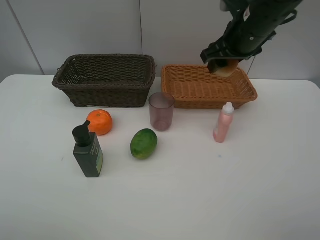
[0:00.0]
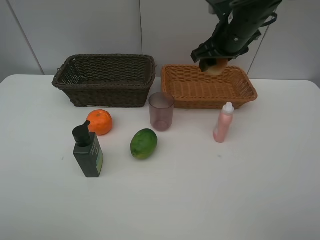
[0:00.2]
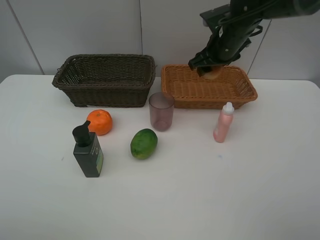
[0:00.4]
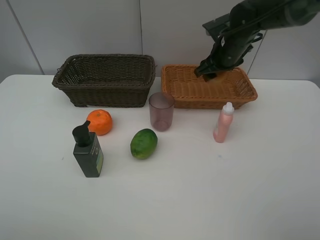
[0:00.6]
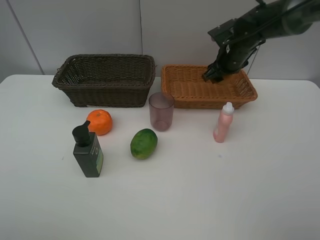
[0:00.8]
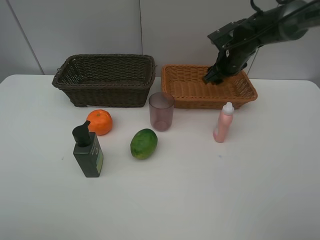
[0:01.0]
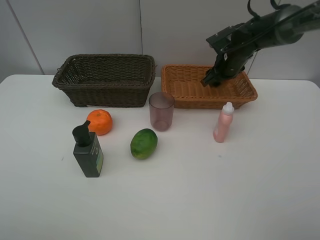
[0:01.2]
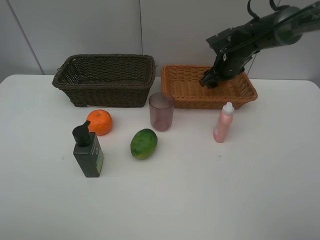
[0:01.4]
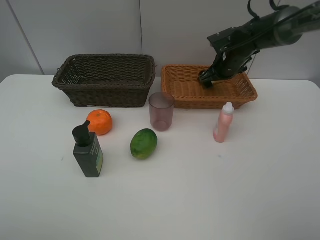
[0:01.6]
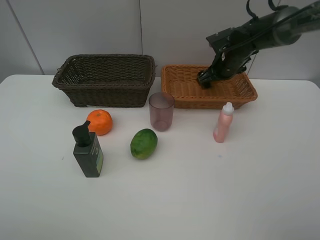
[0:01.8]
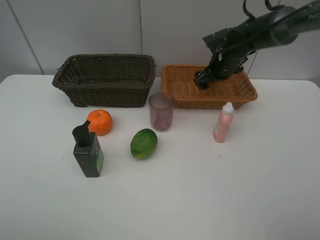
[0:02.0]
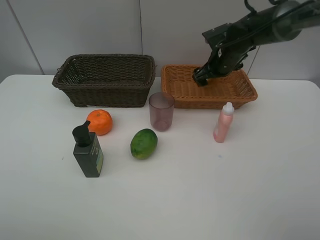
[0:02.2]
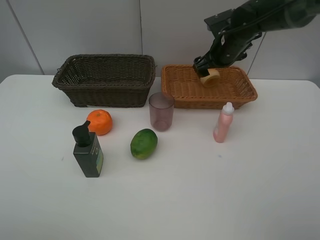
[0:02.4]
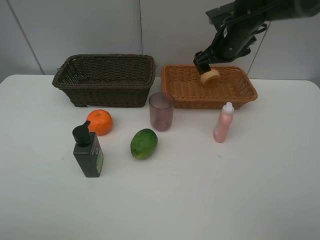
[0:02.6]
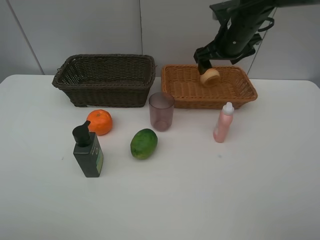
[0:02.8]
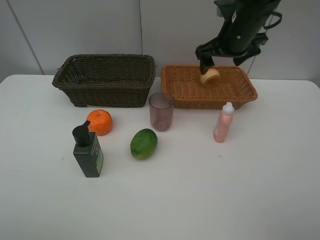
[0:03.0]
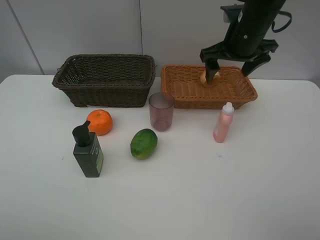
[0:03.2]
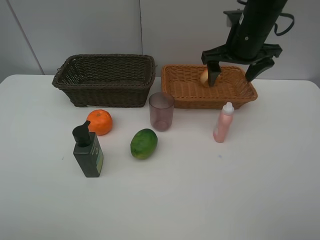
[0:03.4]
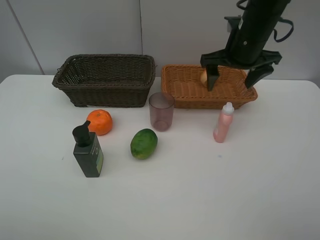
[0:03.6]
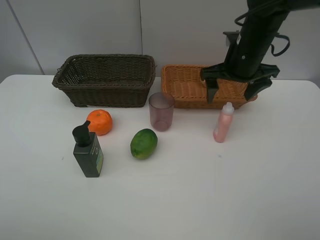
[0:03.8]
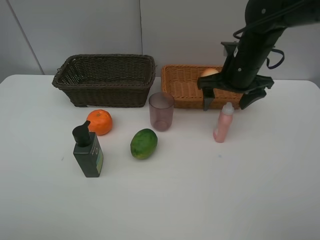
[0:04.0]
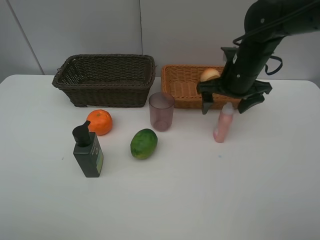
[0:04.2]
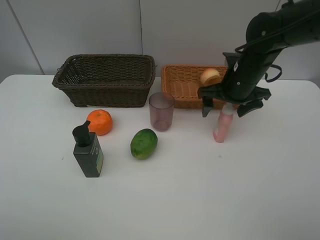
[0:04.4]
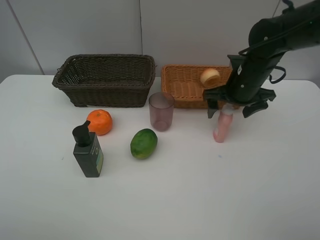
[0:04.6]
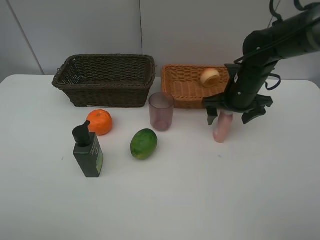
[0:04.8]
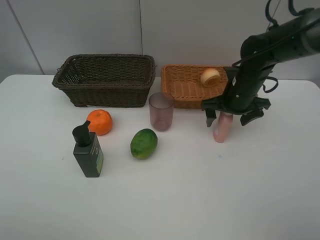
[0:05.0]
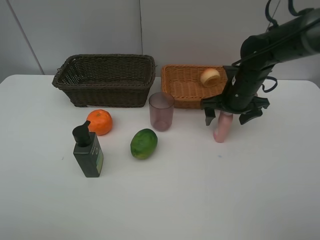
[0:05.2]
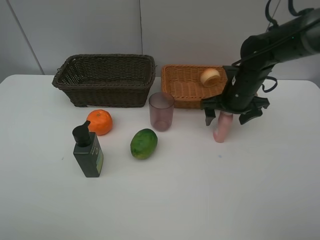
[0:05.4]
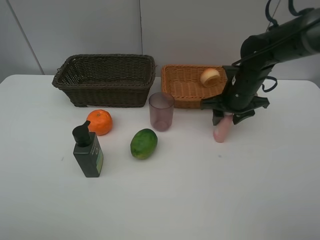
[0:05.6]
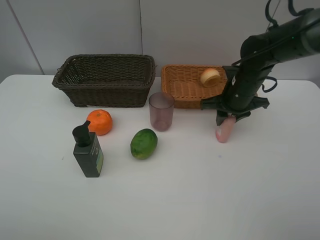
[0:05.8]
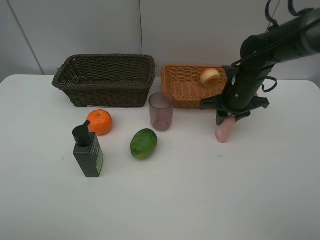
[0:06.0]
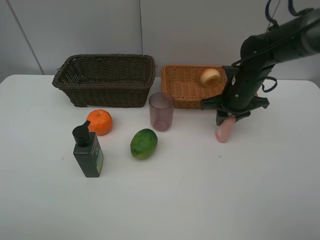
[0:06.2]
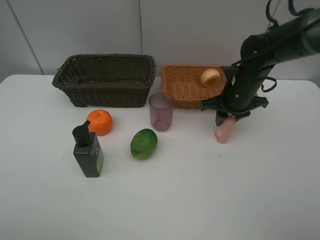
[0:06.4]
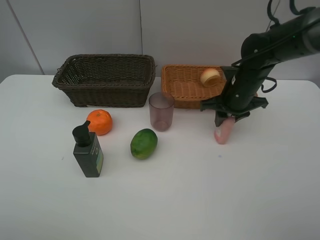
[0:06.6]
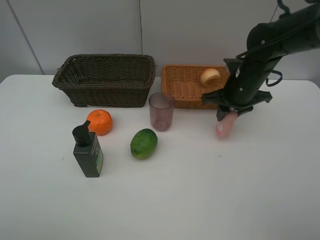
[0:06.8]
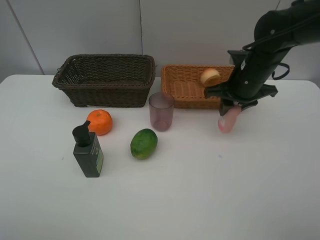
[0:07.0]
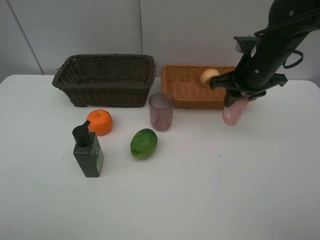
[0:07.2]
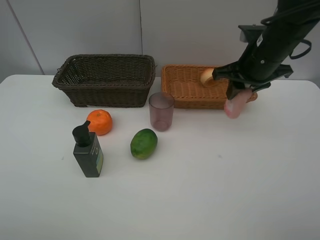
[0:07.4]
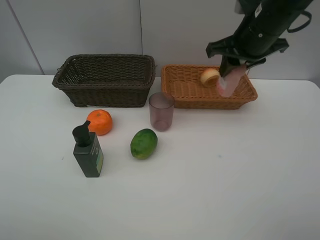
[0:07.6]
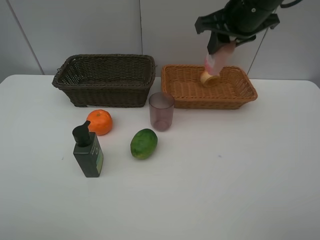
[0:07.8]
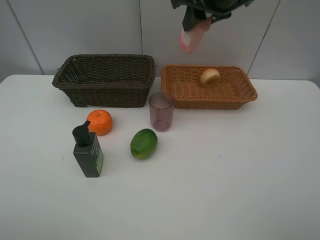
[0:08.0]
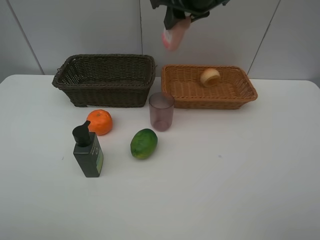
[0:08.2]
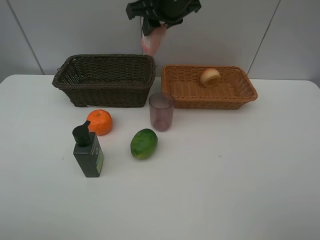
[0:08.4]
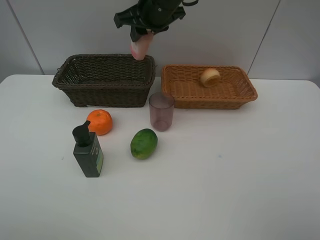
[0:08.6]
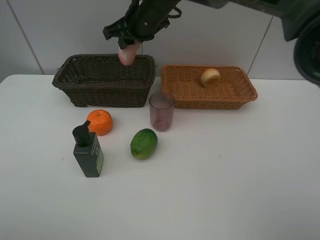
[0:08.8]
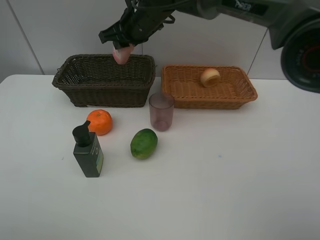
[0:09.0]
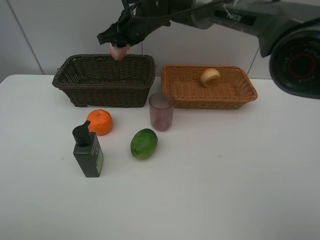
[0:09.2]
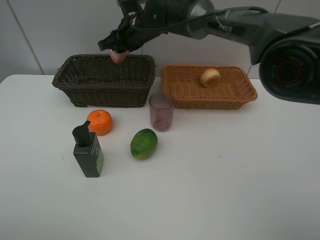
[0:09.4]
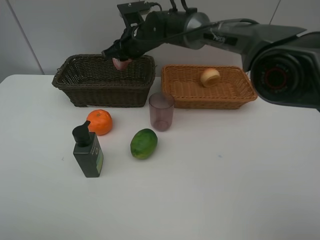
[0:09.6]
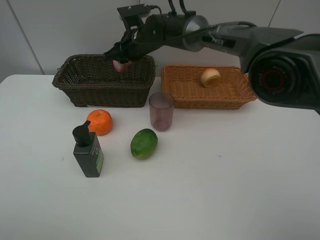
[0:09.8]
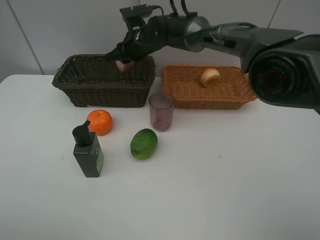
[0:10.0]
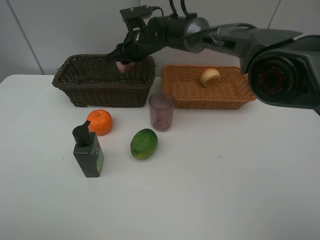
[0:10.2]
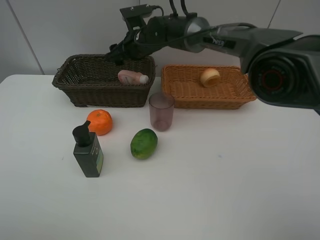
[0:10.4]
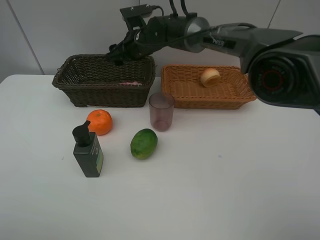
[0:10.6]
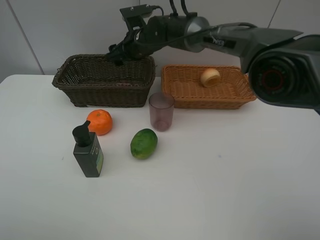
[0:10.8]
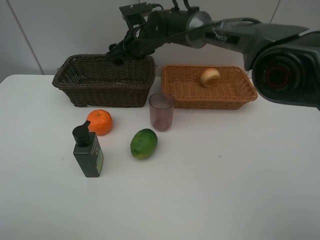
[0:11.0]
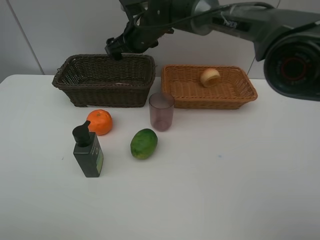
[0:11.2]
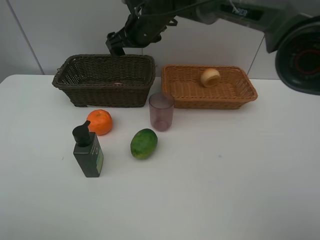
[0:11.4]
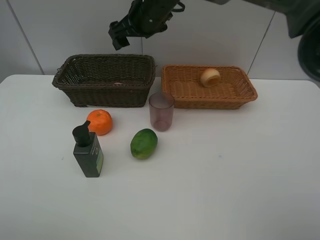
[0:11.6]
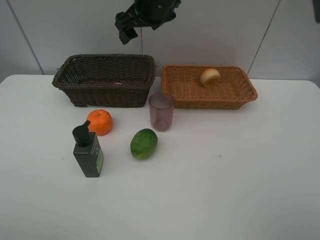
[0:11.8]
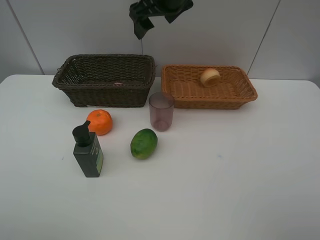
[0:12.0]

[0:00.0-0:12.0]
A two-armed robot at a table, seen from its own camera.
Task of the whole recording: place multiple objects separately in different baskets.
0:00.0 to 0:01.6: The right gripper is displaced downward and forward by approximately 15 cm, and opens its fingers.
0:01.6 to 0:03.0: The right gripper is displaced upward and backward by some 15 cm.
0:03.0 to 0:04.4: The right gripper shifts some 10 cm downward.
0:04.4 to 0:06.0: The right gripper closes.
0:06.0 to 0:07.6: The right gripper moves upward, some 15 cm.
0:07.6 to 0:09.0: The right gripper moves to the left and forward, about 25 cm.
0:09.0 to 0:10.4: The right gripper moves downward, roughly 5 cm, and opens up.
0:10.4 to 0:12.0: The right gripper goes roughly 20 cm upward, backward and to the right.

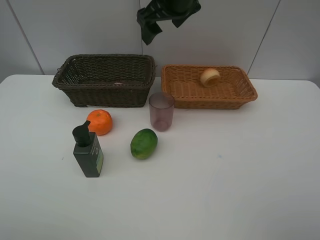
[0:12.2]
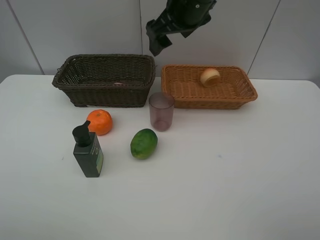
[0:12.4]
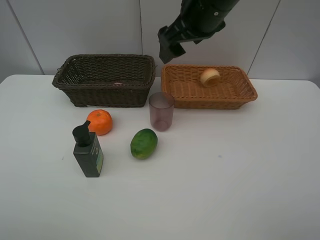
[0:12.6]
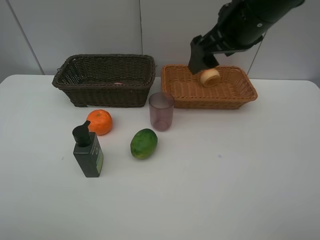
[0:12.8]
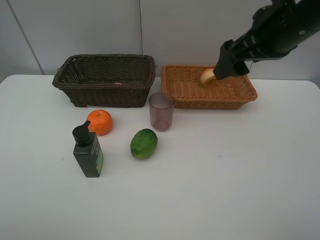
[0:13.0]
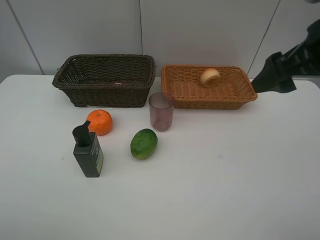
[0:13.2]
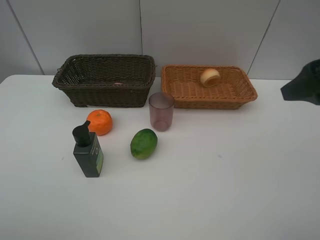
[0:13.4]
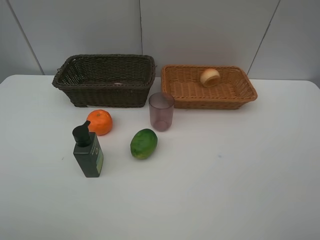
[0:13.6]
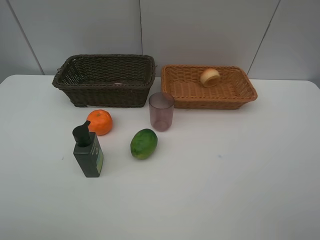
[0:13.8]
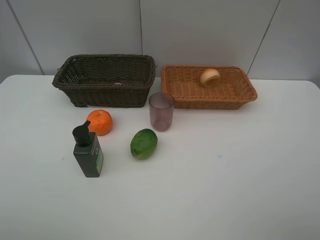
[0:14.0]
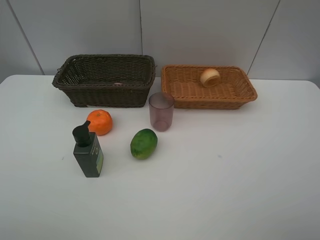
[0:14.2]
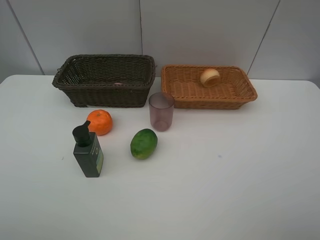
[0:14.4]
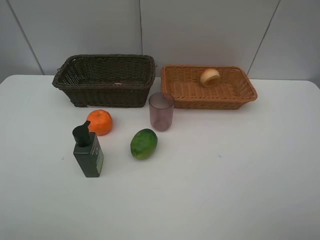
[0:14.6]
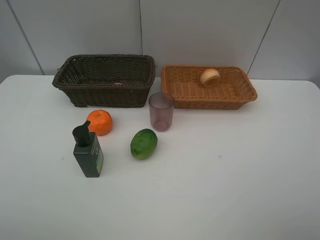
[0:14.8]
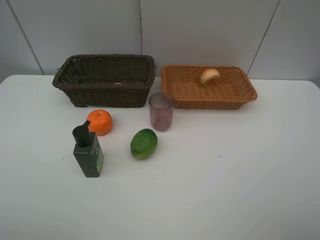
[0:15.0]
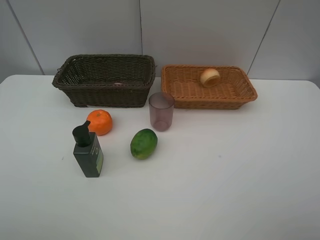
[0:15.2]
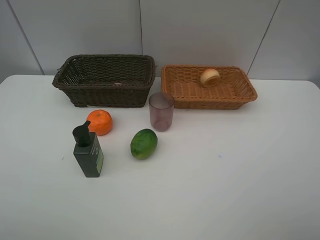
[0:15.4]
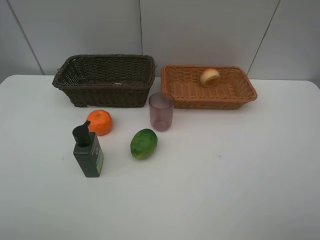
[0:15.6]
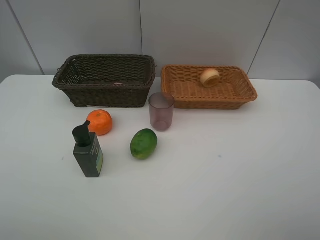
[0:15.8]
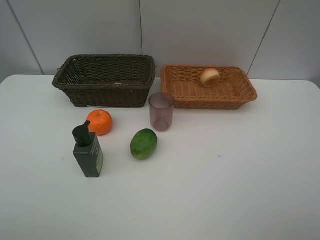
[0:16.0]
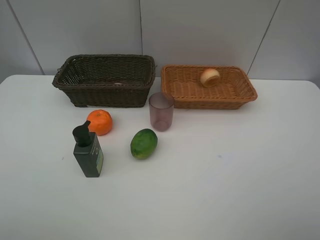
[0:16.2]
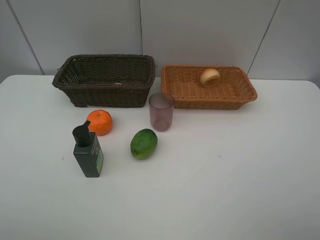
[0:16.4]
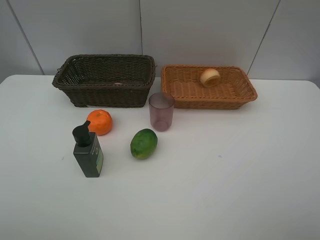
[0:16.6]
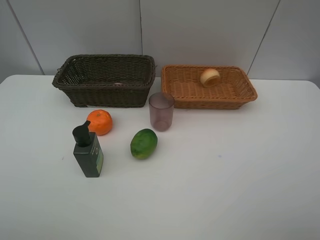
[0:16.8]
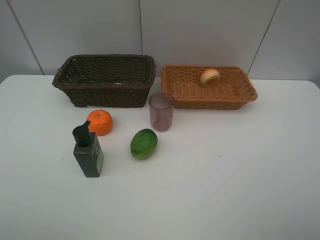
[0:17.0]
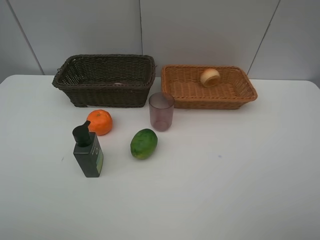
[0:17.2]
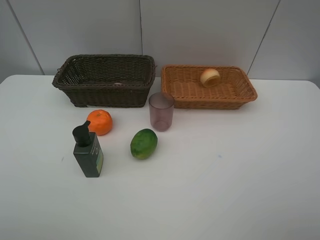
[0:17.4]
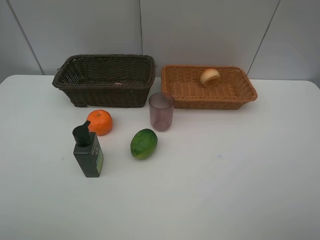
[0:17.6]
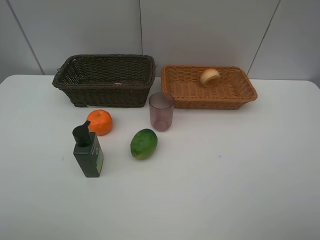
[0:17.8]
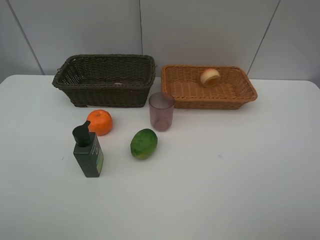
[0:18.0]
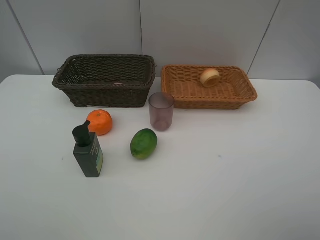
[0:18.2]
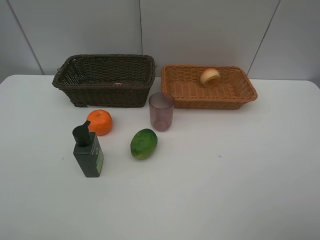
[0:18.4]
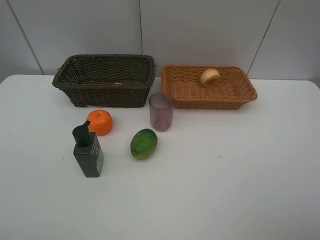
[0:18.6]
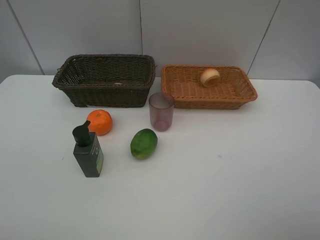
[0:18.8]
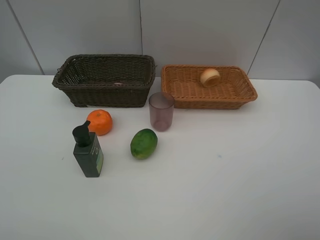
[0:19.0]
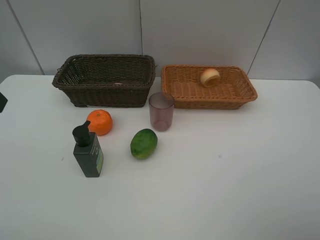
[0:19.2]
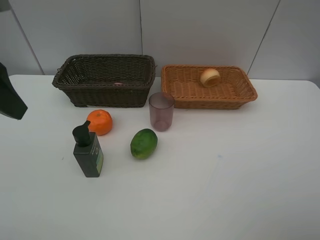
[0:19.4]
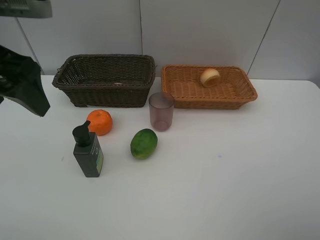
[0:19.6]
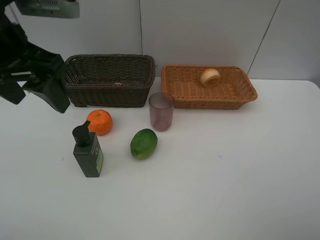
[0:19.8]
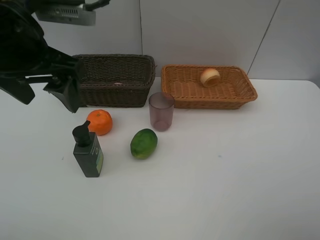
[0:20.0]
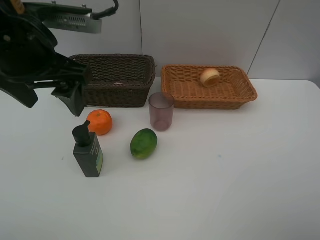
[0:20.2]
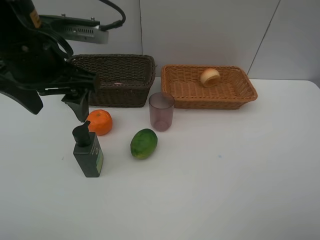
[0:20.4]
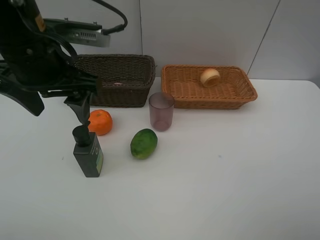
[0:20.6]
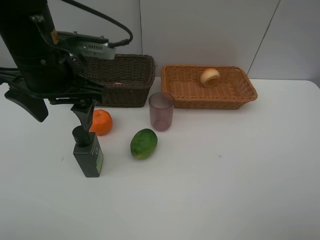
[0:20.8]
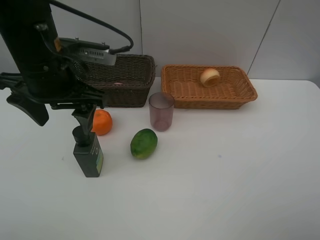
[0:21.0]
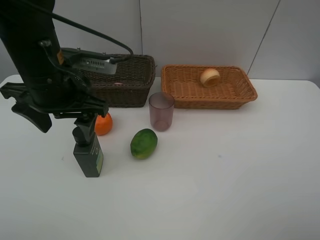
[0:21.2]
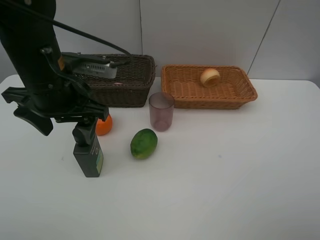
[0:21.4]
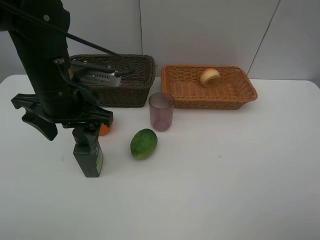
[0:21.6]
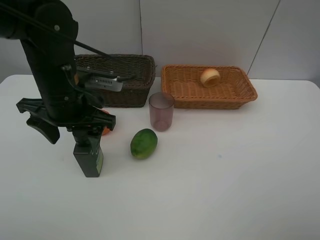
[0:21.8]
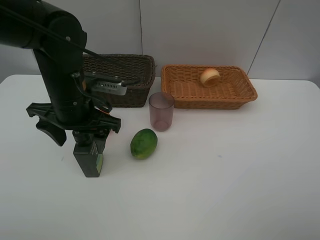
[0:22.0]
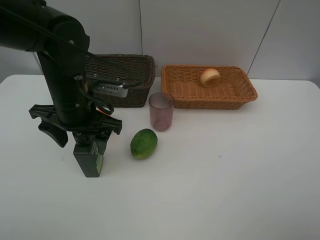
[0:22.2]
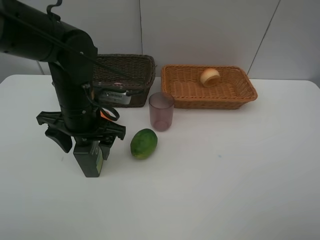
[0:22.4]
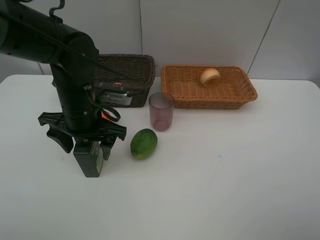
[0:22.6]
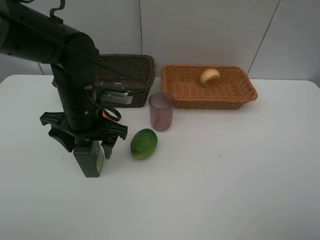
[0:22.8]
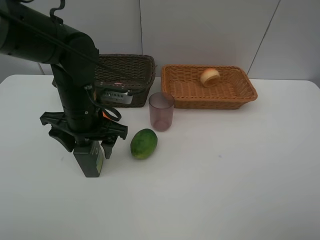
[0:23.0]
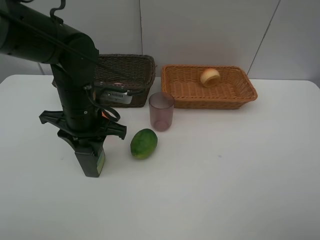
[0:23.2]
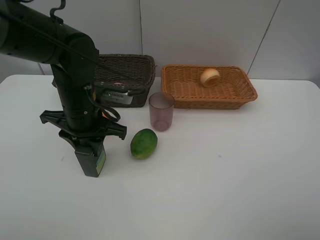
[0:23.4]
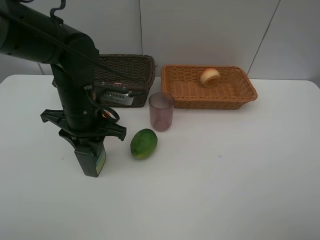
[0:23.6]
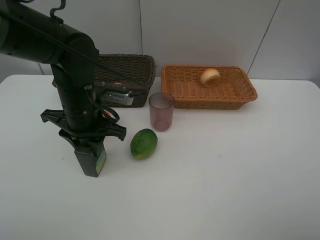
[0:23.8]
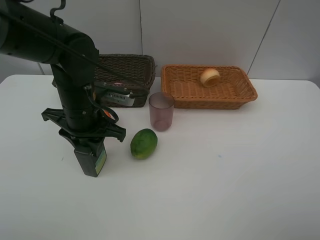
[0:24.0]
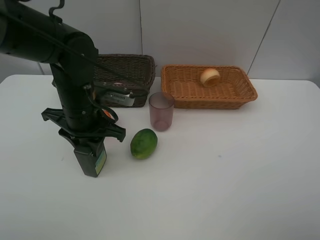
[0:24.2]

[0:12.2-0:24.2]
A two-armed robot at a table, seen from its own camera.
Task of the whole recording: place multiple objects separately in different baskets.
0:12.2 to 0:13.8: The right gripper shifts about 40 cm backward and to the right.
0:18.2 to 0:19.8: The left gripper moves forward and to the right, roughly 20 cm.
0:19.8 to 0:21.2: The left gripper moves downward, roughly 10 cm.
0:21.2 to 0:22.6: The left gripper travels downward by about 10 cm.
0:22.6 to 0:24.2: The left gripper closes up.
